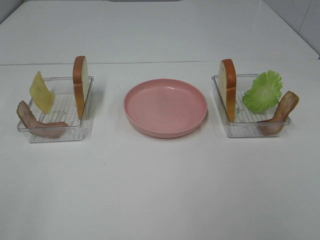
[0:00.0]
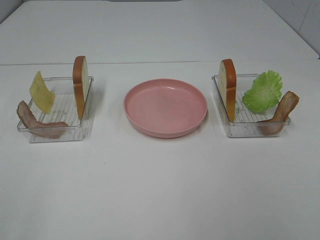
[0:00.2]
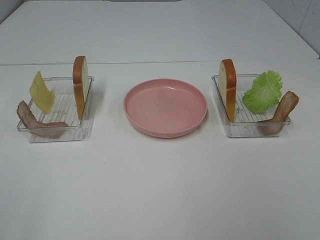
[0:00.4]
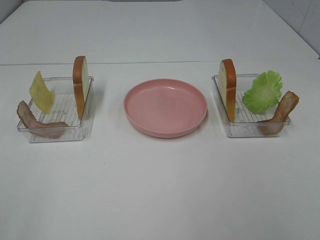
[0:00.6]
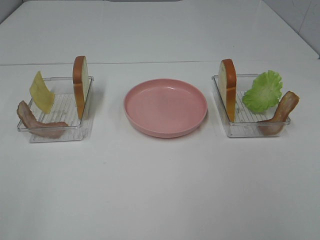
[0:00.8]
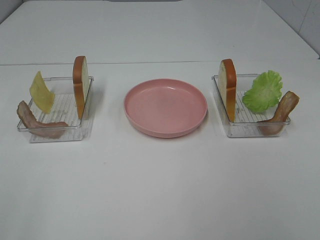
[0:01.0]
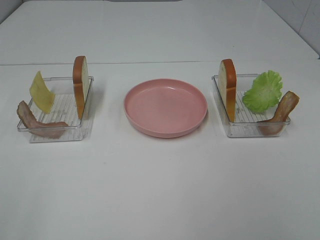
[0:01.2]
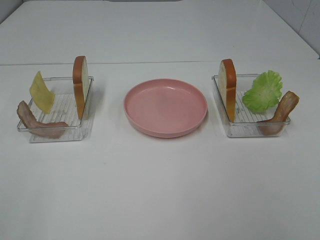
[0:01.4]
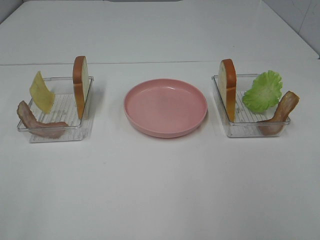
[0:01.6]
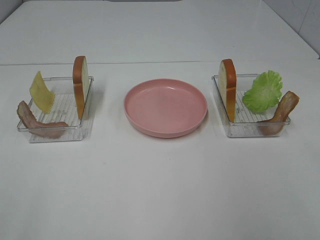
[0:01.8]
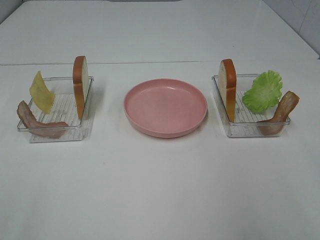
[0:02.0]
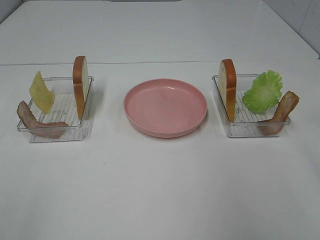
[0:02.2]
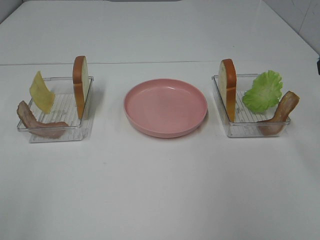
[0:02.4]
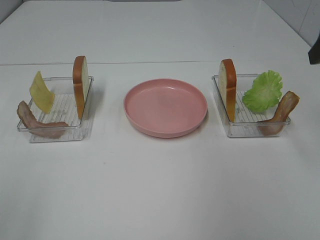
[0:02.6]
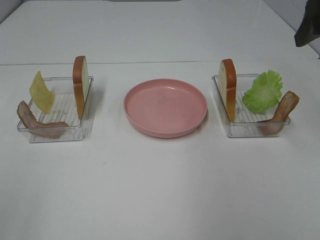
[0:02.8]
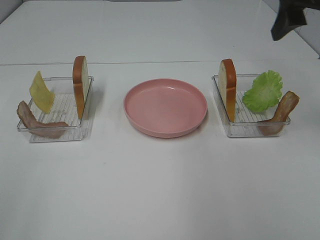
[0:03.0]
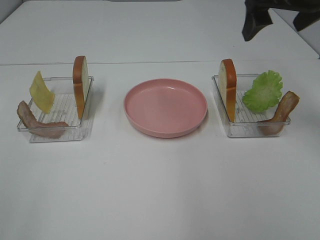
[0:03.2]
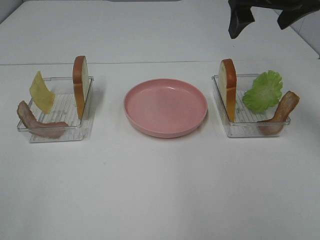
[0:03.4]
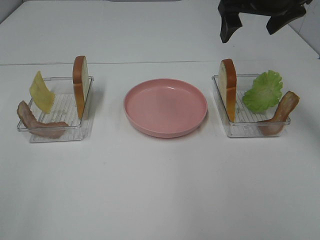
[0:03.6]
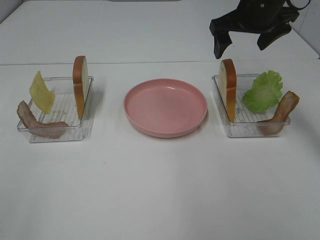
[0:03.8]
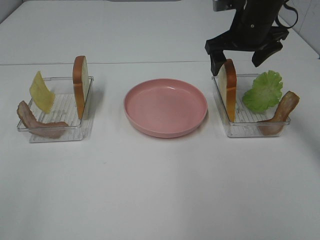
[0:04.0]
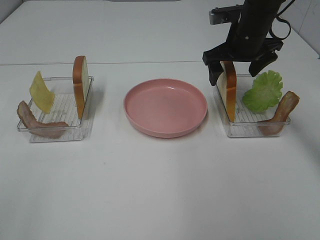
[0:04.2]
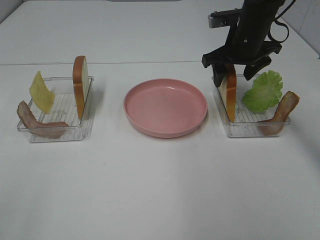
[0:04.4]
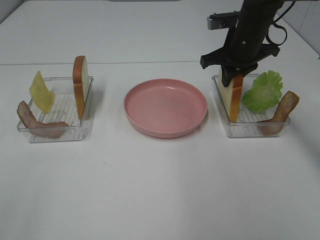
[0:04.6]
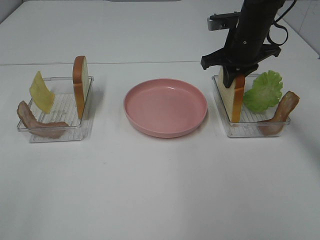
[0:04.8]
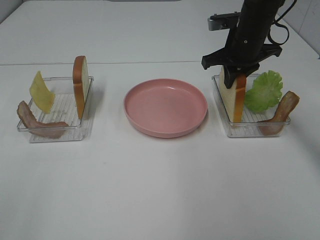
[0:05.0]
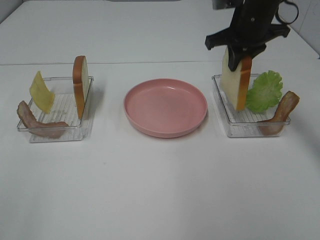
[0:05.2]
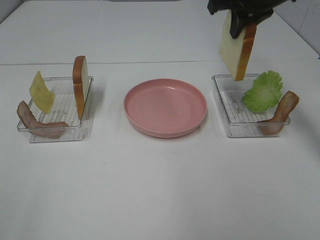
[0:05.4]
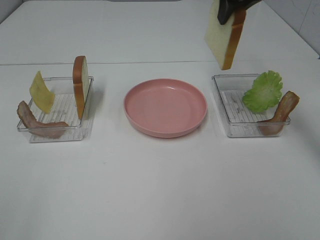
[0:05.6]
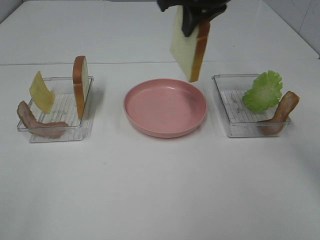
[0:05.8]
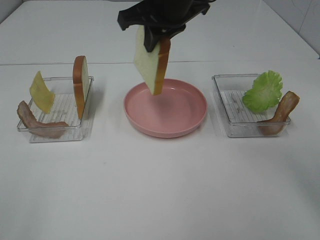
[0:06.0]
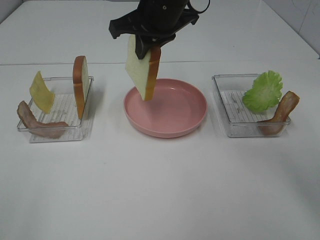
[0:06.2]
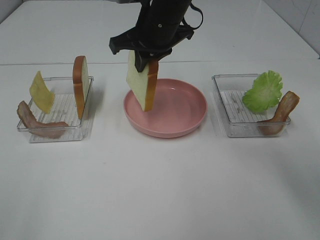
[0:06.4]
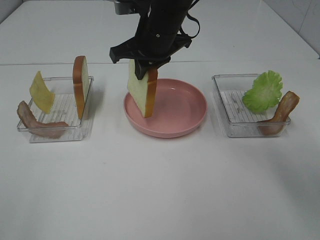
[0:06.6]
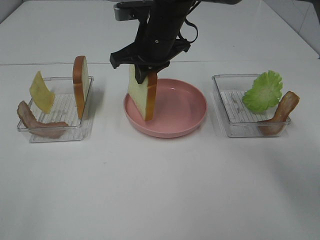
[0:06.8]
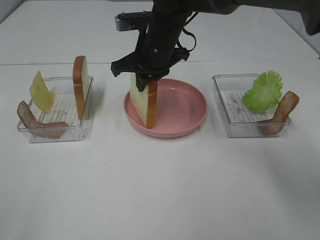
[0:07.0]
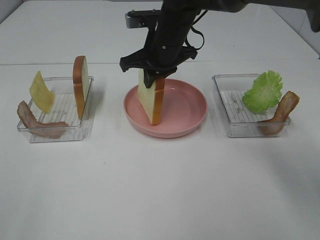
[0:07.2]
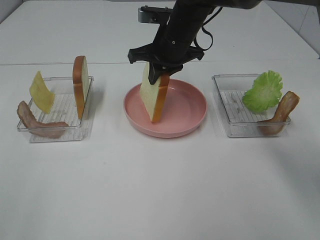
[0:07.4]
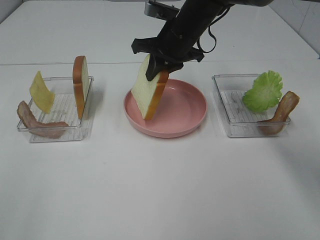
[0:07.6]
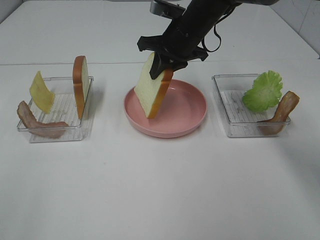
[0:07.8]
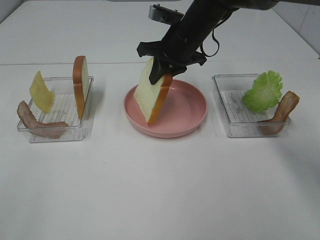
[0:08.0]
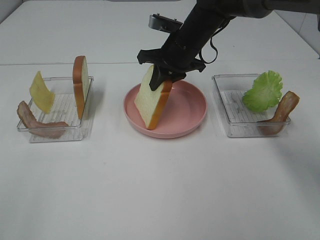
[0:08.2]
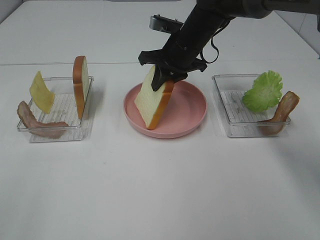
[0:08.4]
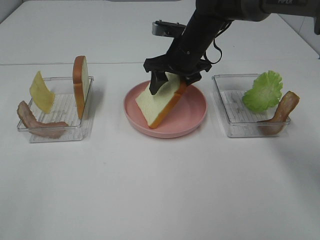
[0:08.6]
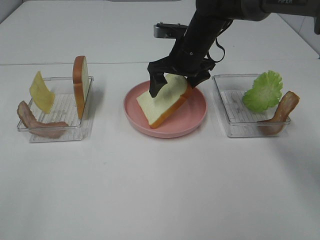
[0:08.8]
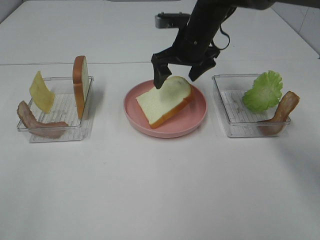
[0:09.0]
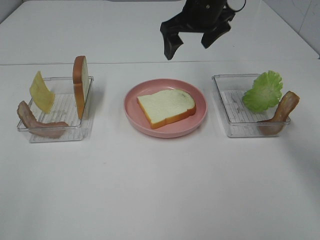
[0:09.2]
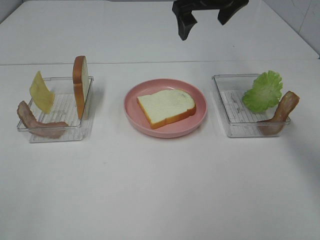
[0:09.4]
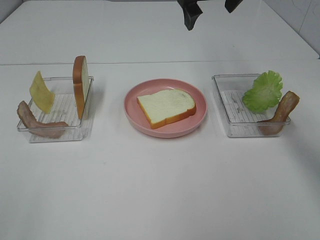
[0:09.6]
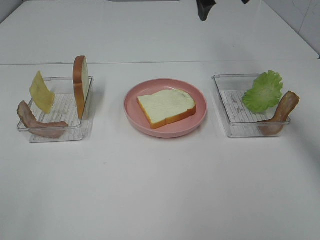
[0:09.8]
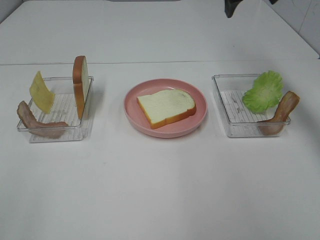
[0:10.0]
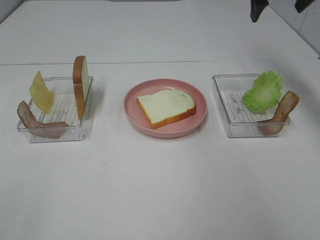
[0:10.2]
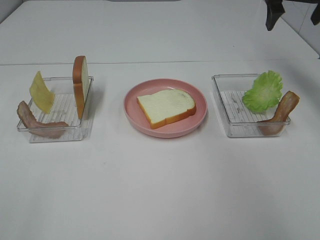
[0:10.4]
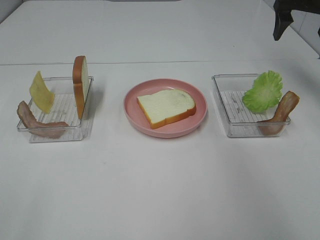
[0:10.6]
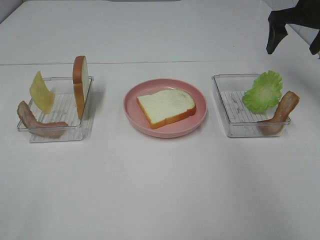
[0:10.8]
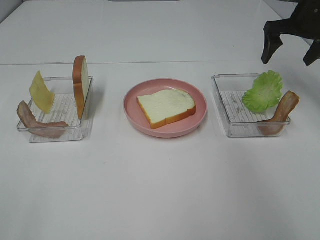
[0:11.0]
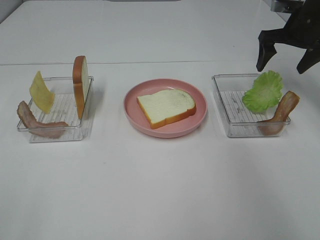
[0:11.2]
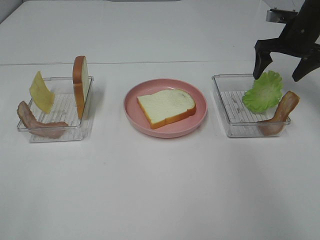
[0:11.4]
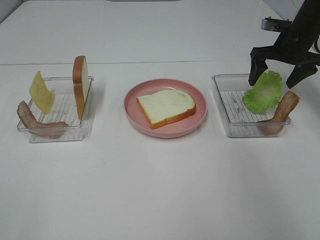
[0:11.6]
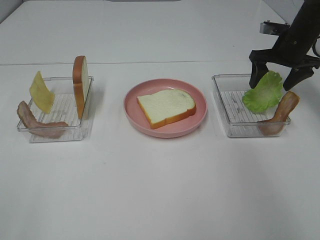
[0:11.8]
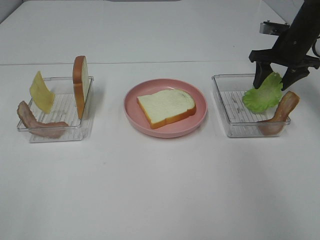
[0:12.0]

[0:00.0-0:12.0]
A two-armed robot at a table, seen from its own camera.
Task of the whole recording: Make sandwiches.
Step, 0:00.0 to 0:05.0: Right hand:grab the bread slice.
Step, 0:05.2 to 0:09.0: Right hand:place the bread slice on the plate.
0:01.6 to 0:03.0: The right gripper shifts some 30 cm forward.
0:03.0 to 0:04.4: The right gripper moves downward, forward and to the left, about 20 cm.
0:04.4 to 0:06.0: The right gripper shifts some 15 cm to the left and upward, and closes up.
0:06.0 to 0:07.6: The right gripper is displaced downward and forward by about 10 cm.
0:07.6 to 0:09.0: The right gripper opens.
0:09.0 to 0:10.4: The right gripper heads to the right and upward, covering about 25 cm.
0:10.4 to 0:12.0: The right gripper goes about 15 cm downward.

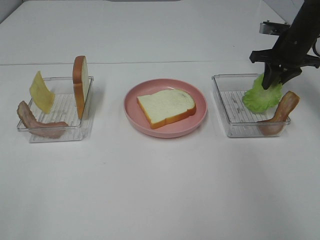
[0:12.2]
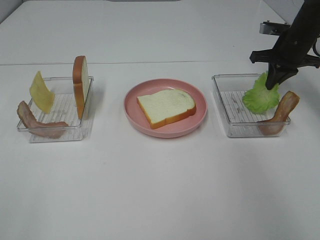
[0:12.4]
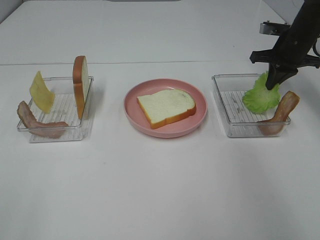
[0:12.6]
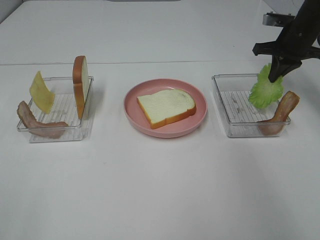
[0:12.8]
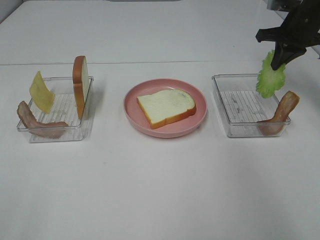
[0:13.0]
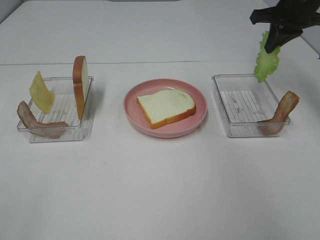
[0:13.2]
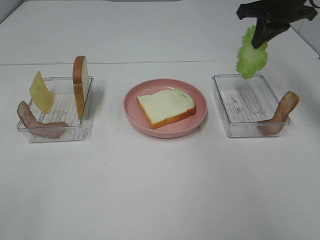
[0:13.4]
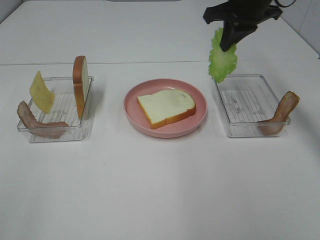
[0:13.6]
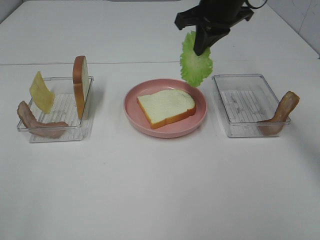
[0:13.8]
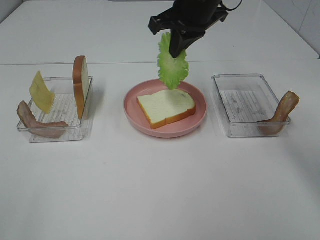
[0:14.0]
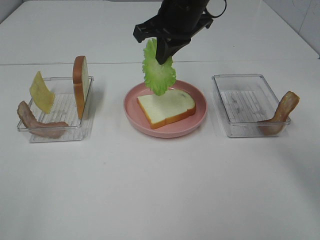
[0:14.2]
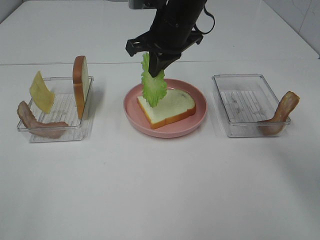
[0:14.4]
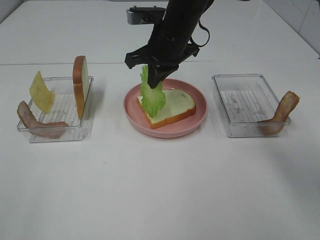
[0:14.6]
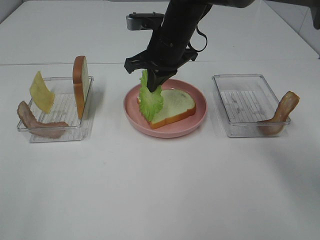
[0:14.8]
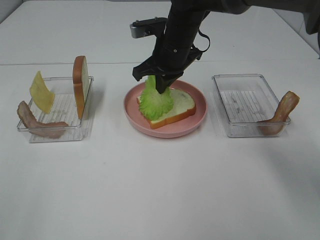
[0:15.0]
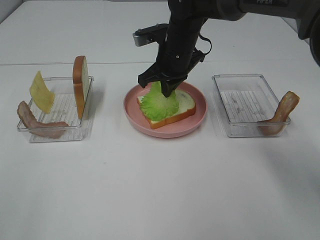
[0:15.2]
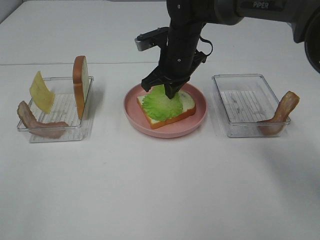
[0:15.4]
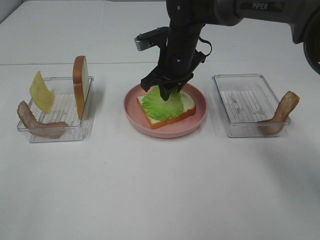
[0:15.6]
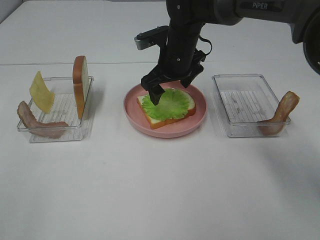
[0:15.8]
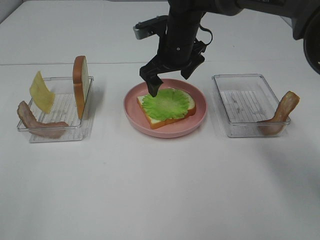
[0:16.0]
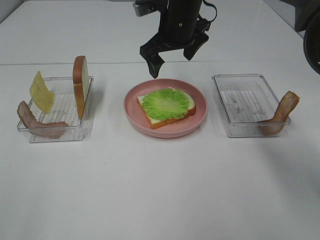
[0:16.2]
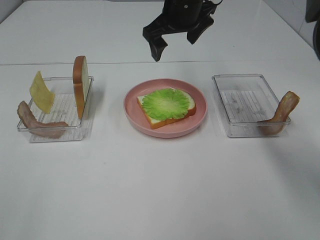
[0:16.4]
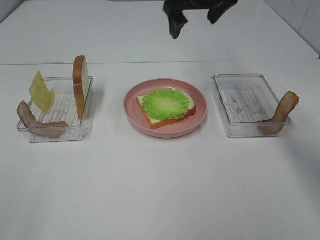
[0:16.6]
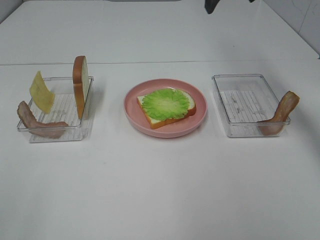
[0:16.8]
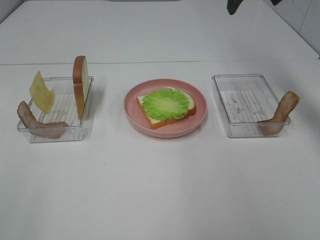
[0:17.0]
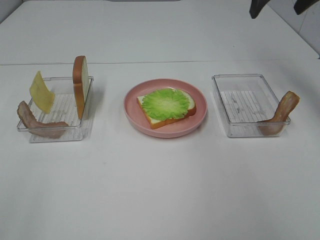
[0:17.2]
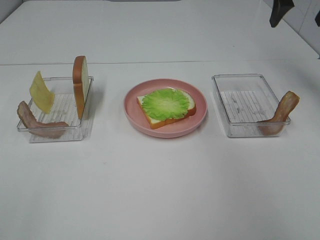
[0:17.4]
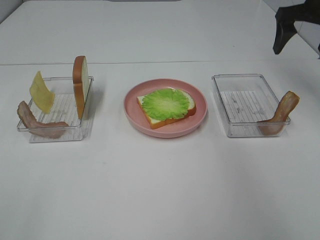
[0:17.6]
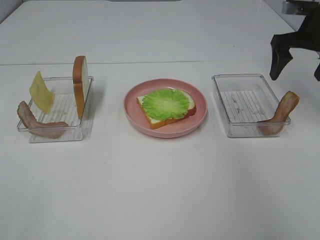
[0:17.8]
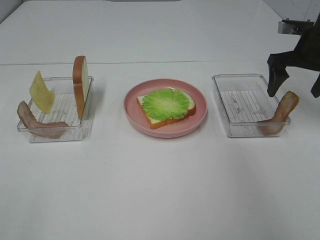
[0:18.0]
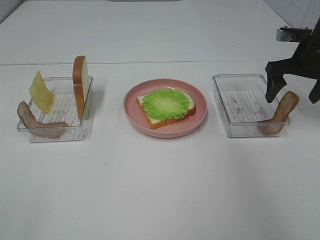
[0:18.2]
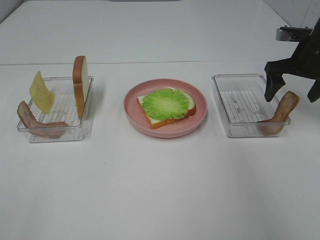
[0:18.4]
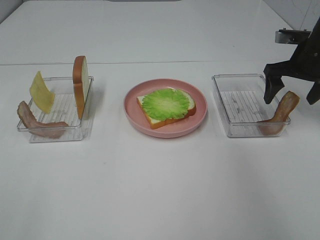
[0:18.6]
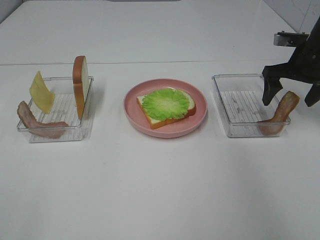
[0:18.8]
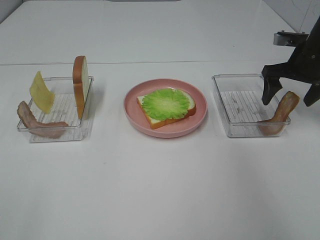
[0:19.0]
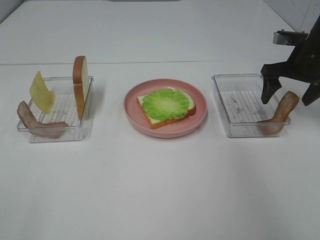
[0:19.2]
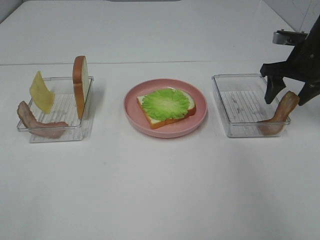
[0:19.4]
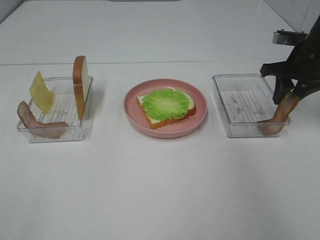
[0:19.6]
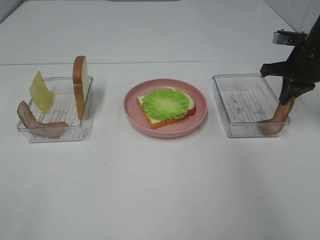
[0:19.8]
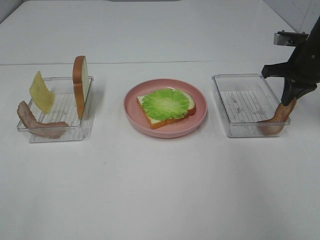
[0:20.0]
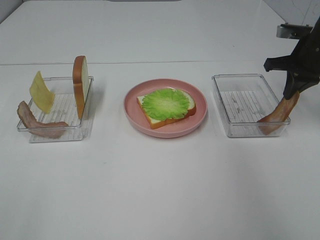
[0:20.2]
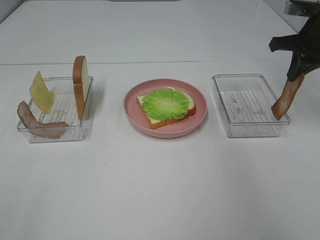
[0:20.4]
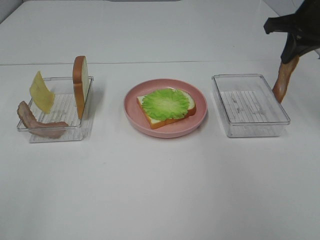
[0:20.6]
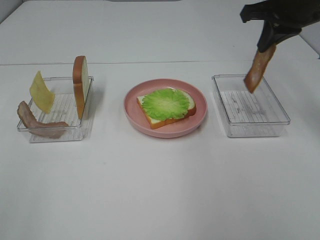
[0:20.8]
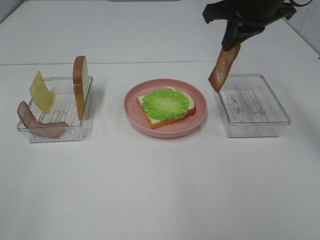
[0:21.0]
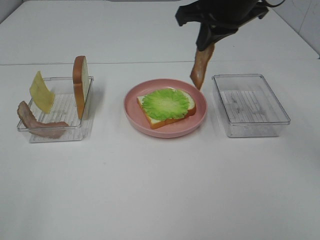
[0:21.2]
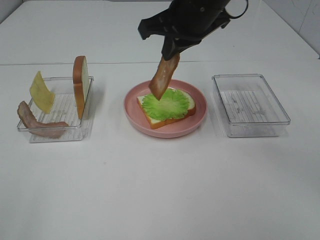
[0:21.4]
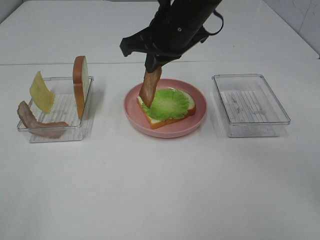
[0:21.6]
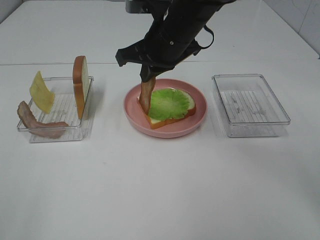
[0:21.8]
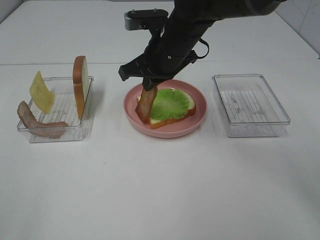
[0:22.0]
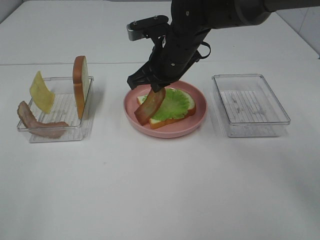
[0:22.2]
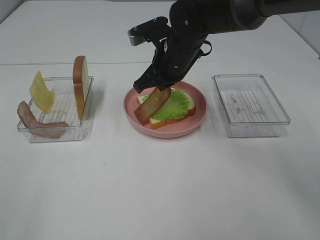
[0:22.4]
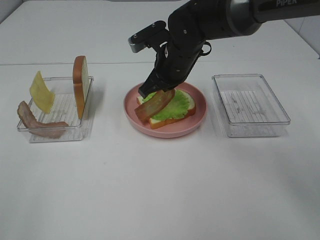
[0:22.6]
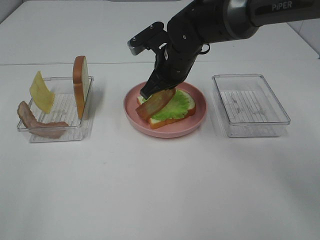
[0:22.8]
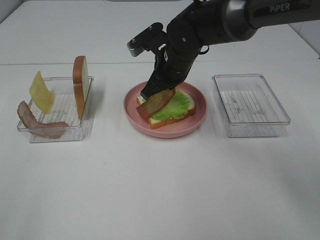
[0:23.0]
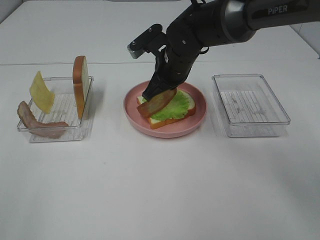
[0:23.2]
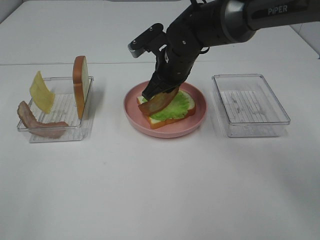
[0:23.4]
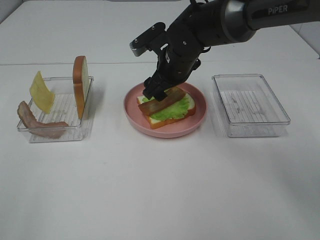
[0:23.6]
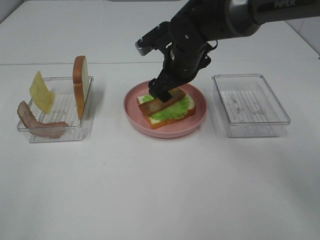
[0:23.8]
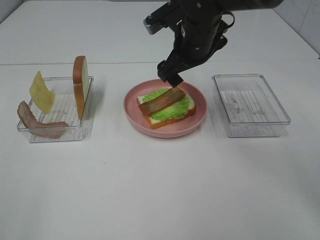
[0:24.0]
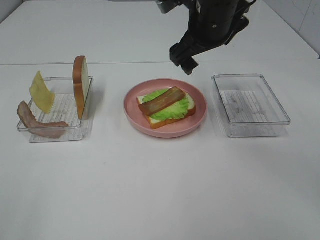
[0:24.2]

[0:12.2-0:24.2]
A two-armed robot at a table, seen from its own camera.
Task of the whole recording: Make sandwiches.
Step, 0:12.8 to 0:15.8: Right hand:place the lettuce slice on the bread slice.
Step, 0:16.0 to 0:19.8: Right hand:grab the bacon.
Step, 0:20.0 to 0:23.6: Right hand:place bacon on lettuce slice.
0:12.2 to 0:13.8: The right gripper shifts roughly 20 cm to the left and upward.
0:13.8 to 0:15.2: The right gripper goes about 15 cm downward and to the left.
0:15.2 to 0:16.6: The right gripper travels upward and to the right by roughly 15 cm, and opens up.
0:16.6 to 0:18.2: The right gripper is displaced to the right and downward by some 25 cm.
0:18.2 to 0:19.8: The right gripper closes up.
0:19.8 to 0:21.2: The right gripper moves to the left and upward, roughly 25 cm.
0:21.2 to 0:22.6: The right gripper heads downward and to the left, covering roughly 15 cm.
0:22.6 to 0:24.2: The right gripper is displaced upward by roughly 10 cm, and opens up.
